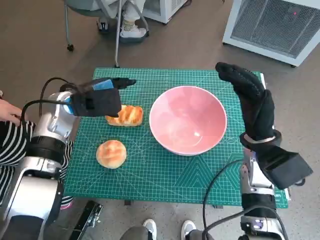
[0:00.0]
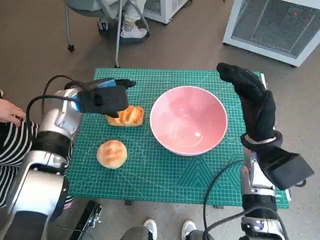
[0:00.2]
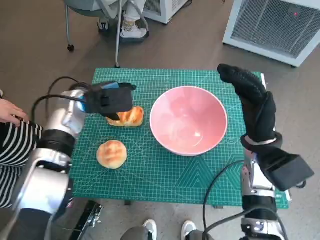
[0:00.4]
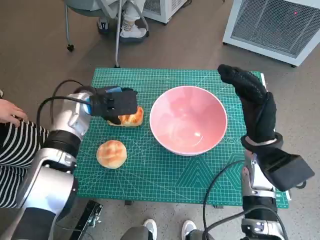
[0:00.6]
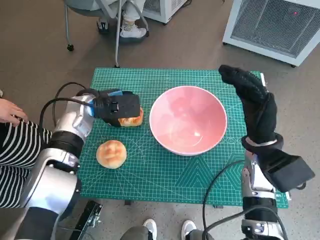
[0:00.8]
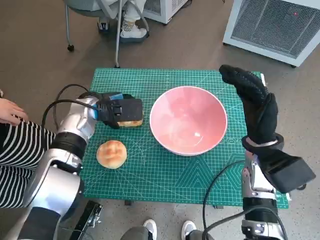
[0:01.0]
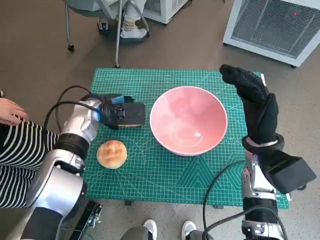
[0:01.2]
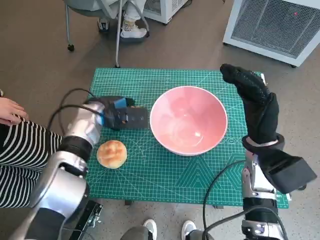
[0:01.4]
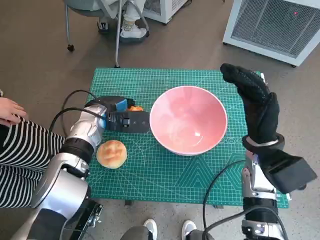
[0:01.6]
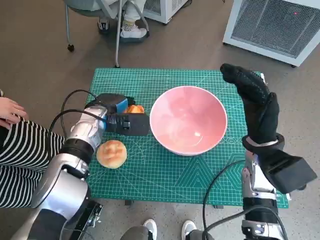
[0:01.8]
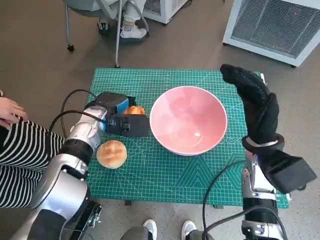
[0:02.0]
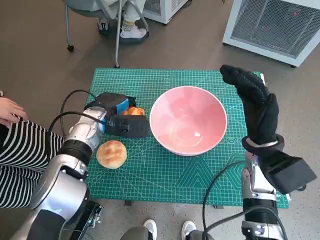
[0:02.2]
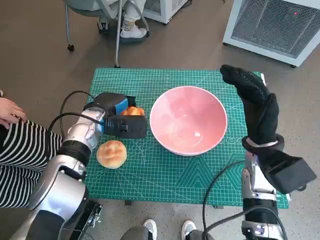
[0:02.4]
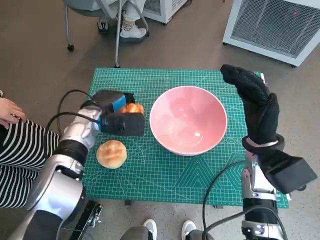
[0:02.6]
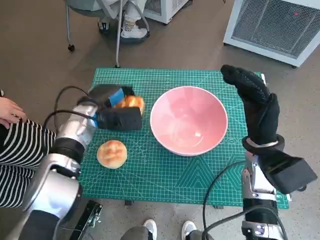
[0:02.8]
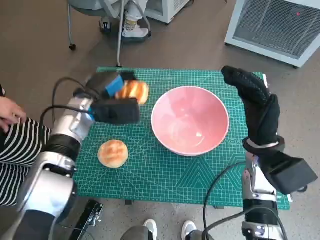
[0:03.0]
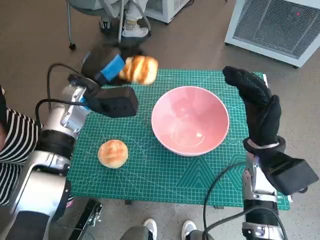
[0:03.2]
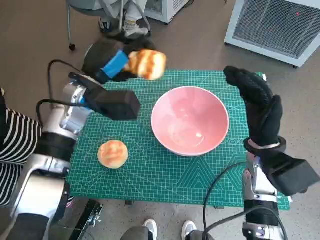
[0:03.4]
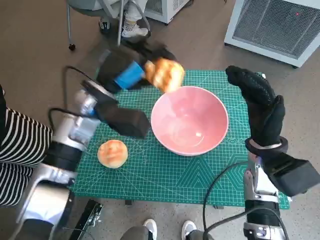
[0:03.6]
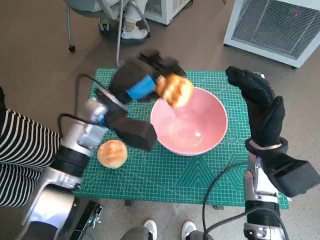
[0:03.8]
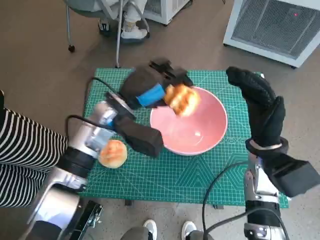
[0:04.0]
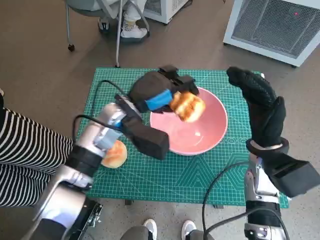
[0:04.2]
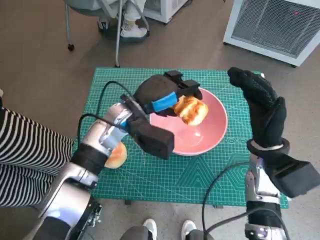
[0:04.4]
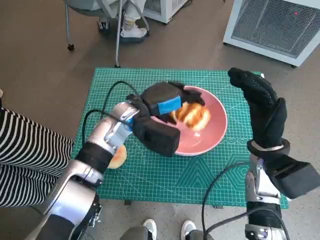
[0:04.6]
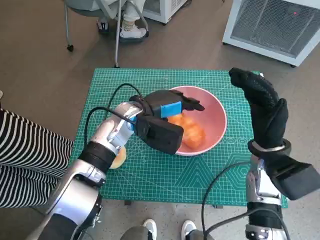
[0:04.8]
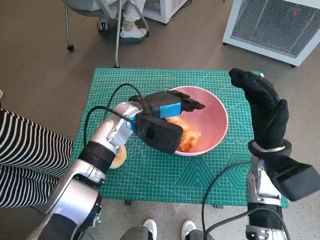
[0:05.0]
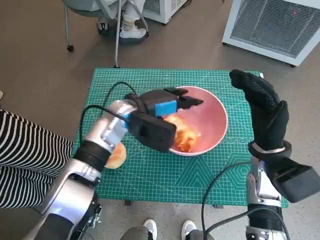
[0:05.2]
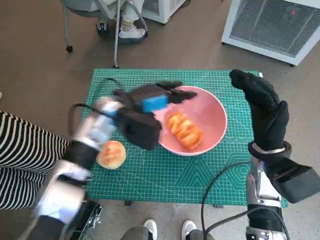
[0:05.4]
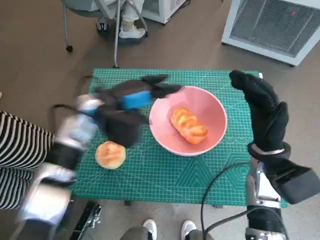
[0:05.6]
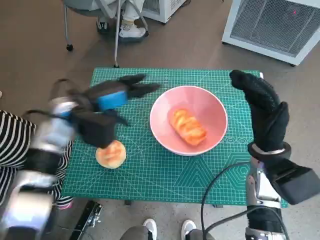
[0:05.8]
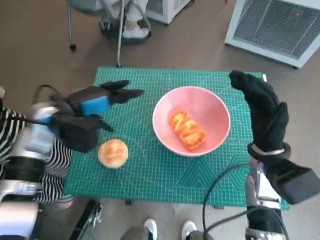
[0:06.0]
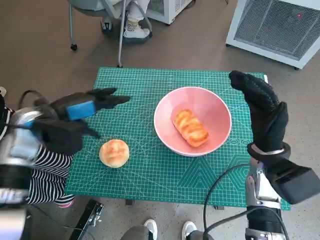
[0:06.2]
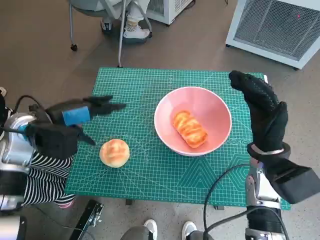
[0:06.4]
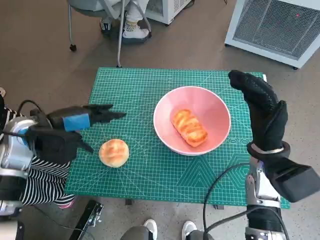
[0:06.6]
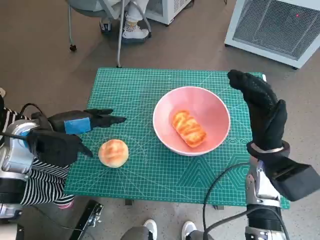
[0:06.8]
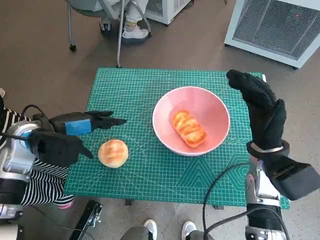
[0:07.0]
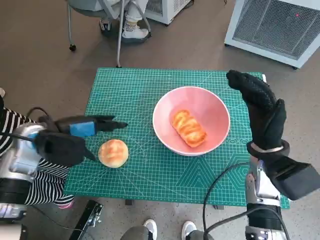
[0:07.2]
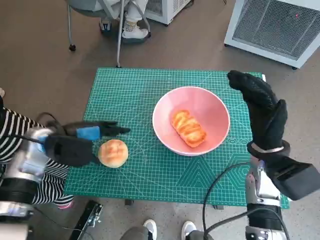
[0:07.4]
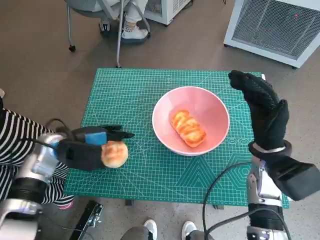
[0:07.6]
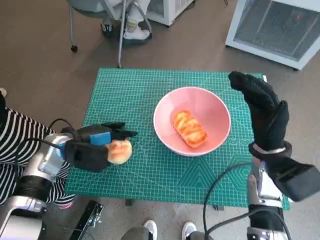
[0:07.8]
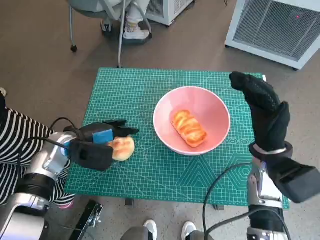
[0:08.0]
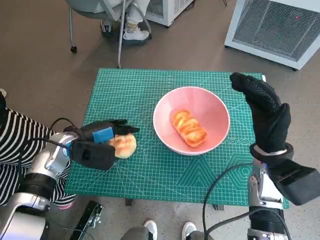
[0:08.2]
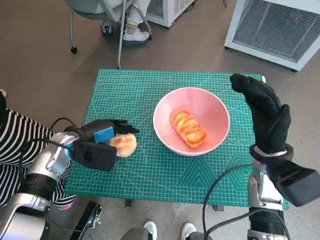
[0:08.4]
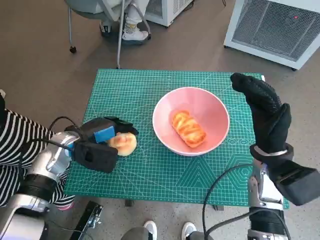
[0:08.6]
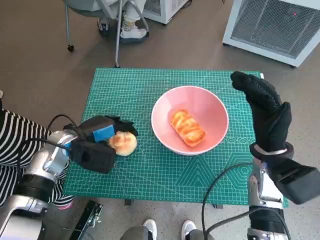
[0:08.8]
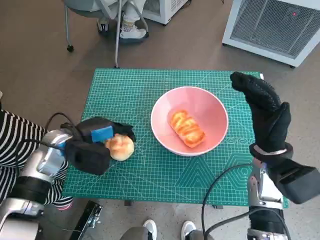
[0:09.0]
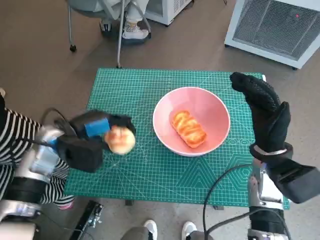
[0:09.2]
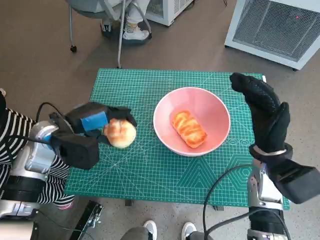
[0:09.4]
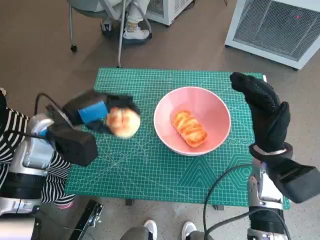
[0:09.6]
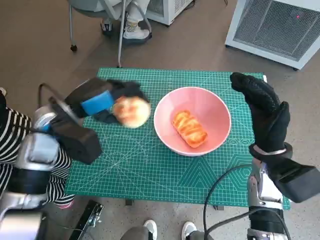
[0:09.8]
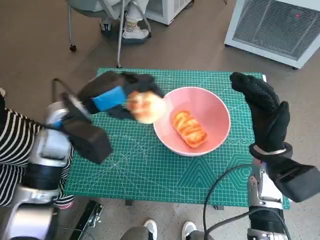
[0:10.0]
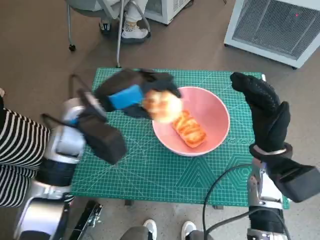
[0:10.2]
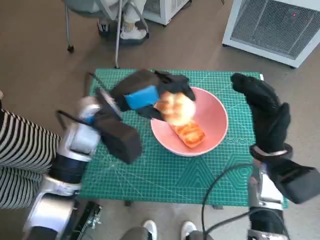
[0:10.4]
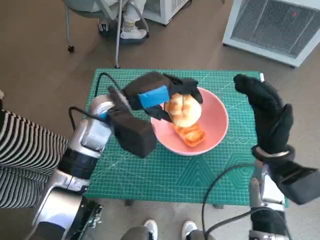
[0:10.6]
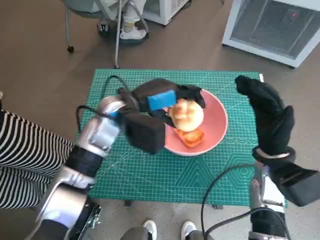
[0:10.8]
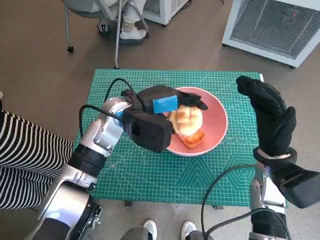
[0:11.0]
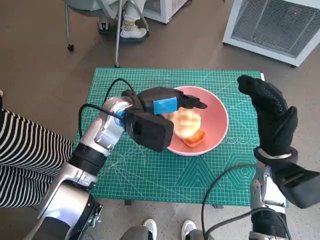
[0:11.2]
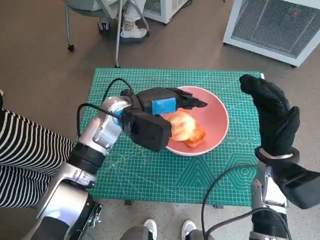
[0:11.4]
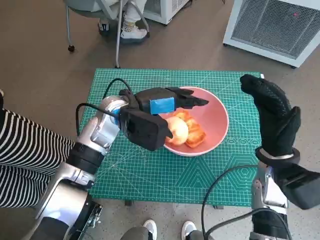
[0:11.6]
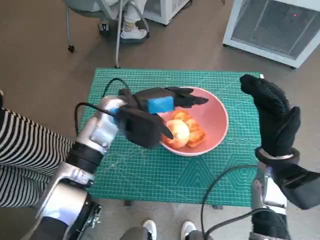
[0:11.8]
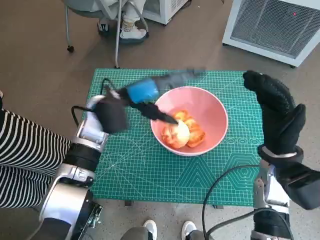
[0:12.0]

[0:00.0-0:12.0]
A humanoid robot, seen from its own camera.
Task of the whole recording: Push the bowl into the center of the table and put the bread into the bowl.
Step, 2.0 to 5.4 s: Place the long bread in pink bowl with left hand.
Step, 5.6 to 8.4 s: Grasp the round bread with left hand.
Step, 8.6 to 12.0 s: Place the round bread in pink bowl with left hand.
0.0 to 1.6 s: The left hand heads downward, covering approximately 5 cm.
3.0 to 4.4 s: The left hand shifts approximately 10 cm to the right.
4.4 to 6.0 s: The left hand heads to the left, covering approximately 15 cm.
6.0 to 7.6 s: The left hand heads downward, covering roughly 5 cm.
7.6 to 9.0 s: The hands stay close to where they were, moving slightly.
9.0 to 10.4 s: The left hand moves to the right and upward, some 15 cm.

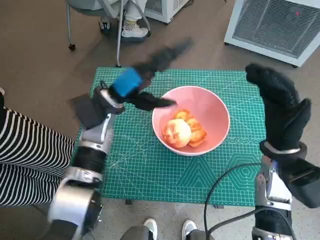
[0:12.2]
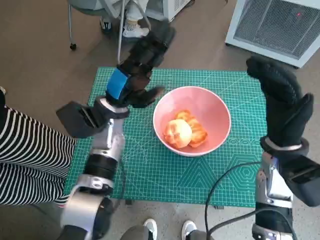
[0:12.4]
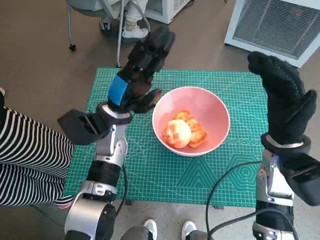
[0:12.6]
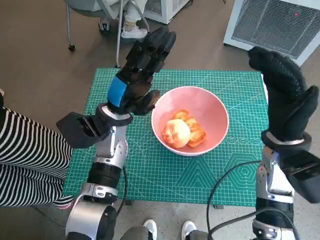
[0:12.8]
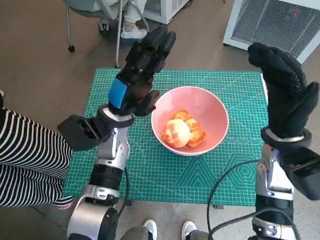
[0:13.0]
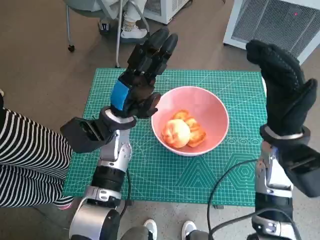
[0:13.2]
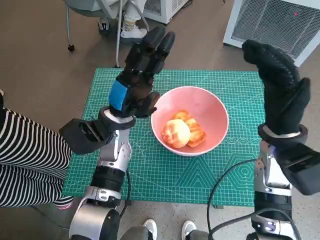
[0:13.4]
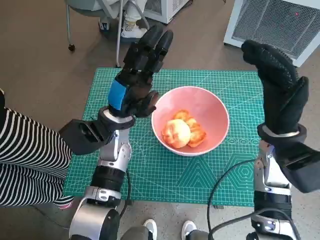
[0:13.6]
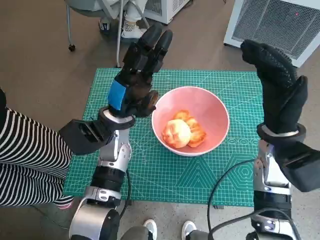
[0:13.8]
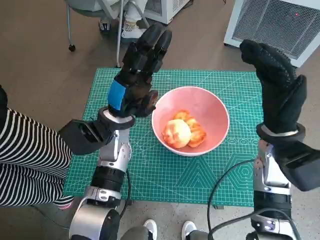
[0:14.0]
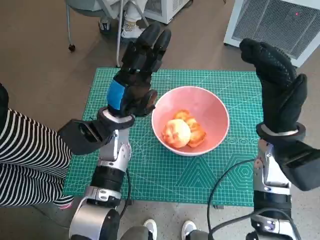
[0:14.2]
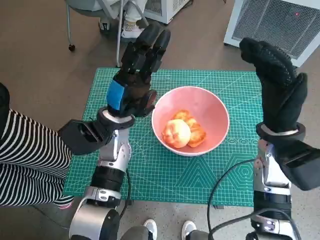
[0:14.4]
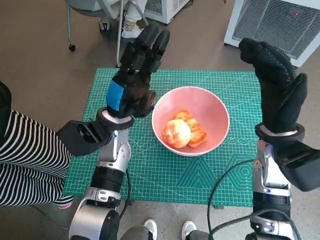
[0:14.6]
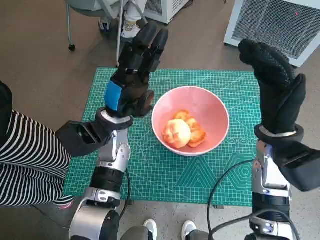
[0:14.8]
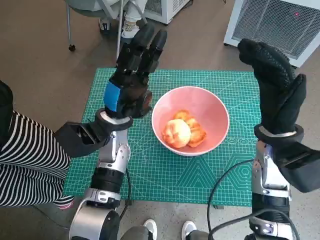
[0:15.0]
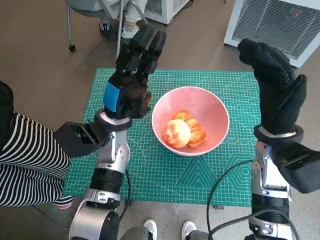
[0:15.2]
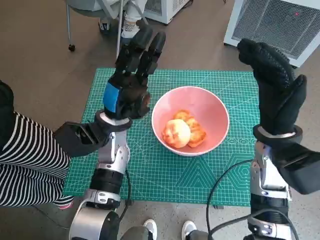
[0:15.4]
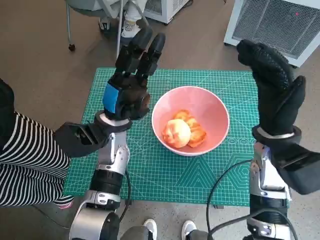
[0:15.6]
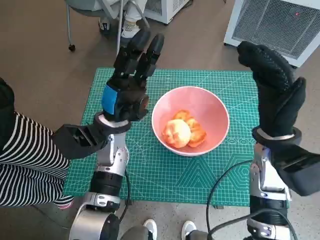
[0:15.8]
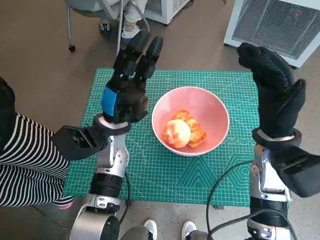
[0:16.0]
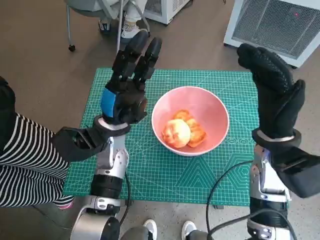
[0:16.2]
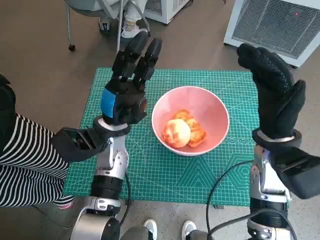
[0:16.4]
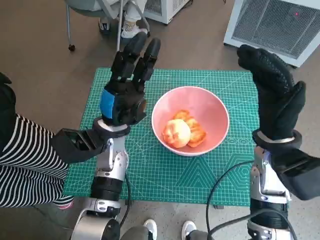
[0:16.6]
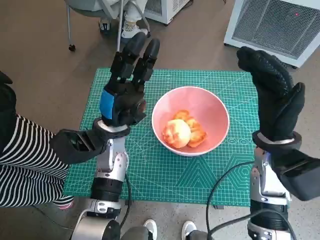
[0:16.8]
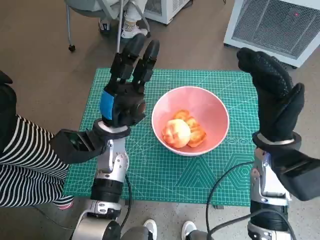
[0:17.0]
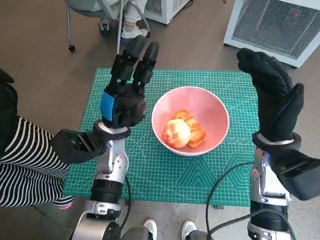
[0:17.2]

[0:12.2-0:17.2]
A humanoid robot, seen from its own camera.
Task of the whole recording: Push the bowl into the center of the table and put the bread into the bowl.
13.8 to 15.6 s: Both hands stay put.
15.6 to 17.2 s: There are only small adjustments of the hands.

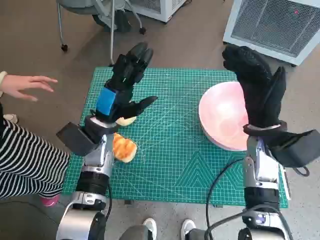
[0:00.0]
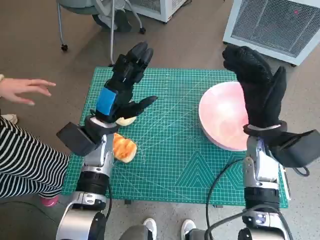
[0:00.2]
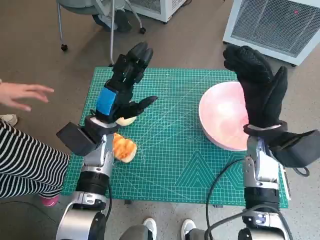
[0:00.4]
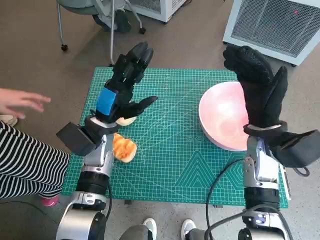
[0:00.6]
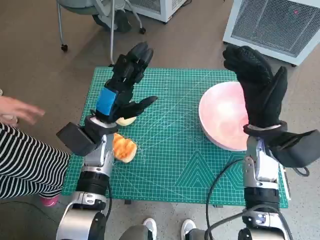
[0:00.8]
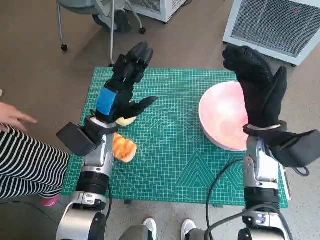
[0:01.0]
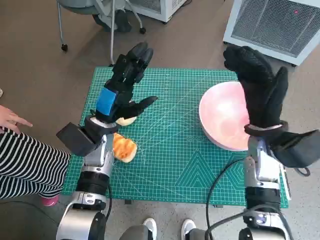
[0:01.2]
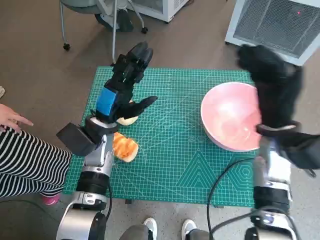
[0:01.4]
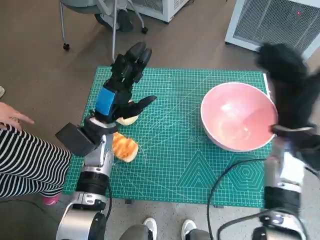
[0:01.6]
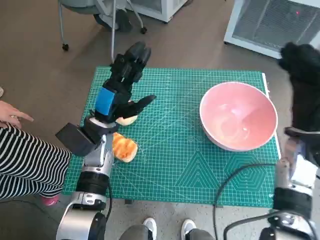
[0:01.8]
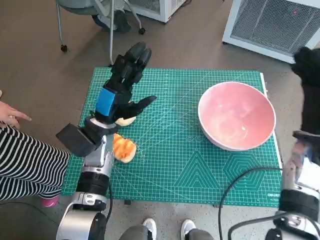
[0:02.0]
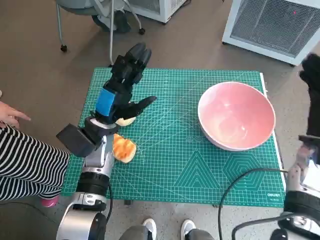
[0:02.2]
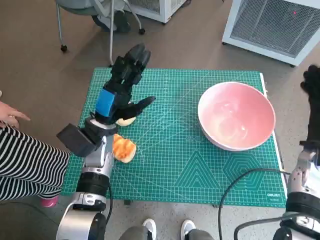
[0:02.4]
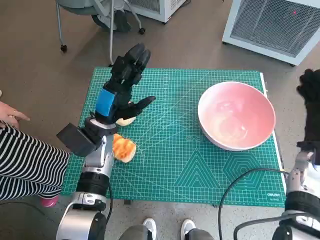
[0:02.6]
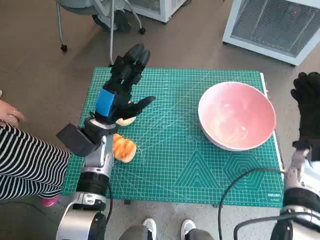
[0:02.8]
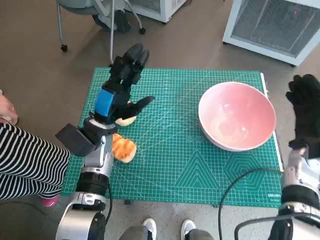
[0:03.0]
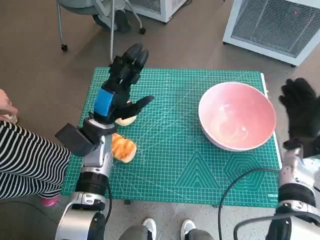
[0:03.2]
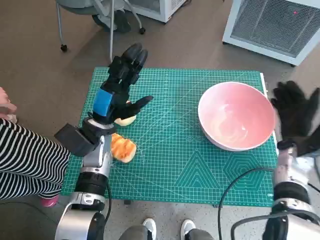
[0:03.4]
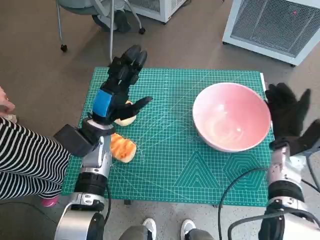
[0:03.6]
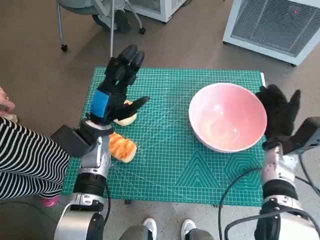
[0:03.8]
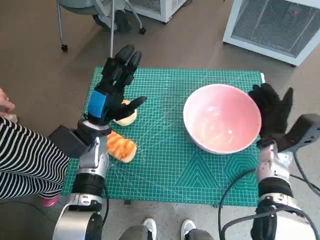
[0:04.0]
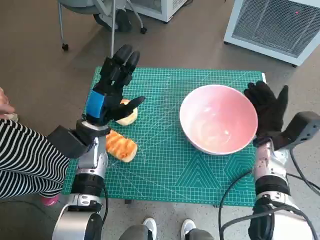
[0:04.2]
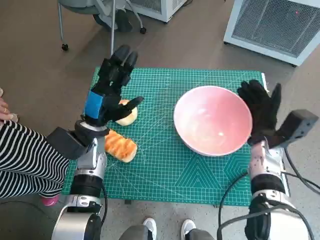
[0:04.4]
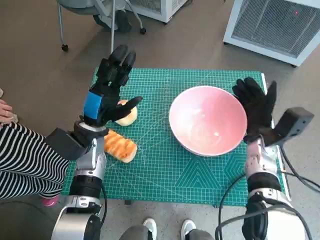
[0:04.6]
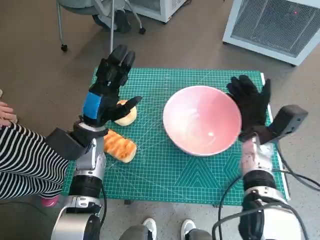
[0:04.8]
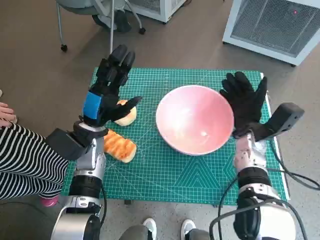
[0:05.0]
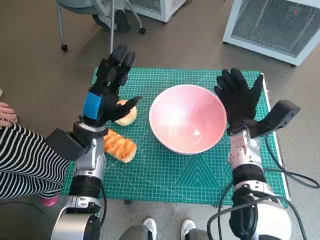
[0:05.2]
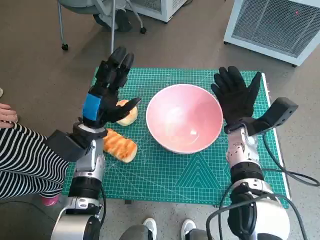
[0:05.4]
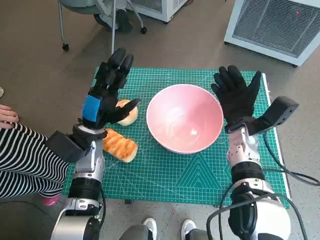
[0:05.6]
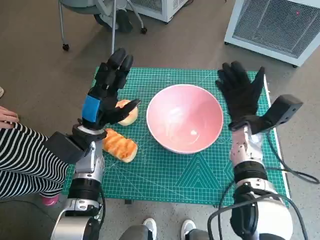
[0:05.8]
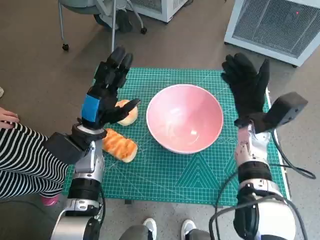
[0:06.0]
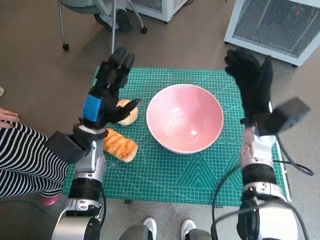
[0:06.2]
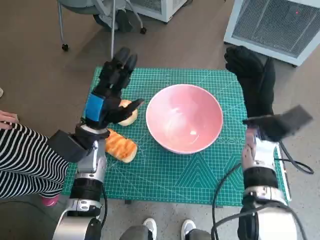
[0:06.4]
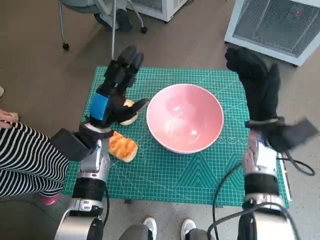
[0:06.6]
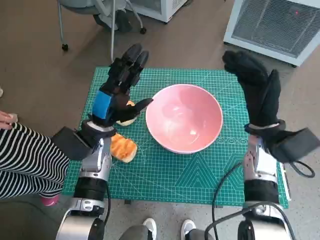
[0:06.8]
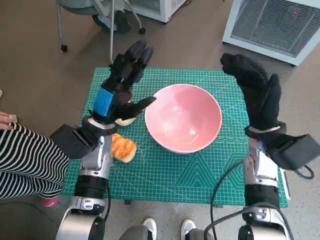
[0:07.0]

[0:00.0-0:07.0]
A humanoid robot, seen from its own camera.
Task of the whole recording: Push the bowl into the center of the table and put the bread into the bowl.
Step, 0.0 to 5.8 s: Move the pink bowl to the center of table with right hand.
1.4 to 2.8 s: The right hand travels to the right and downward by some 10 cm.
2.8 to 4.2 s: The right hand travels to the left by approximately 5 cm.
4.2 to 5.6 s: The right hand shifts some 5 cm to the left.
5.6 to 7.0 s: The right hand is displaced upward by approximately 5 cm.
